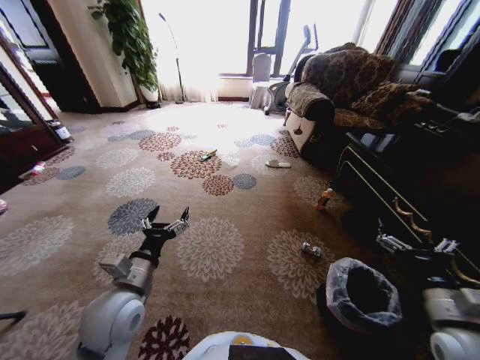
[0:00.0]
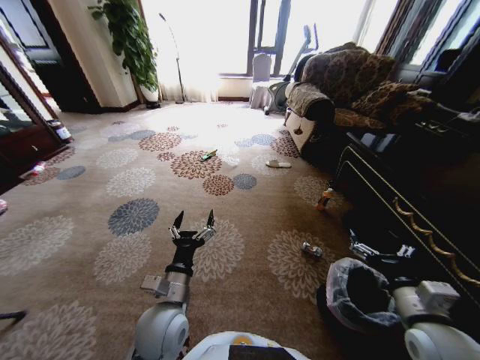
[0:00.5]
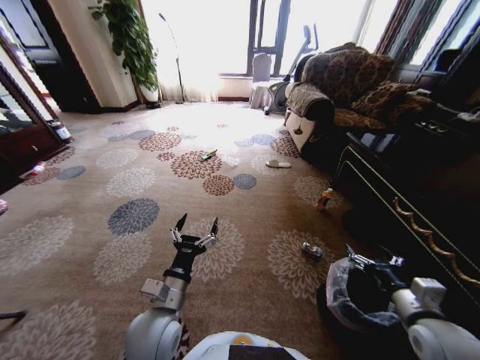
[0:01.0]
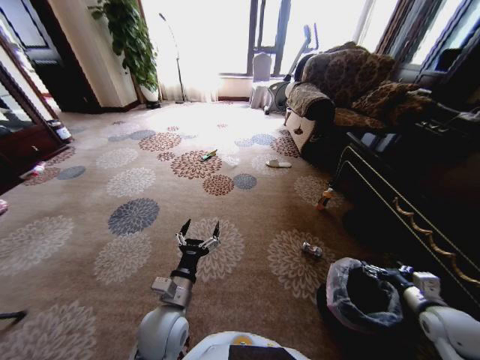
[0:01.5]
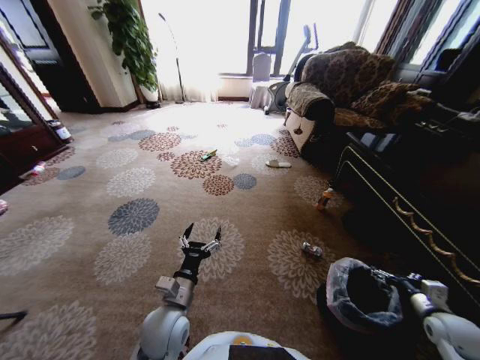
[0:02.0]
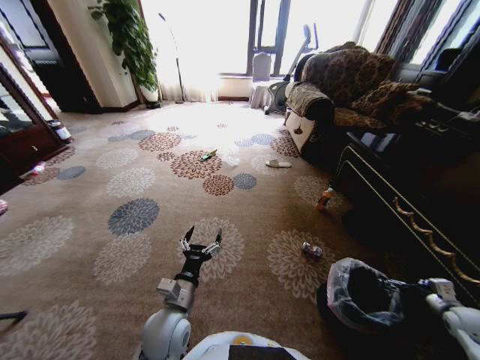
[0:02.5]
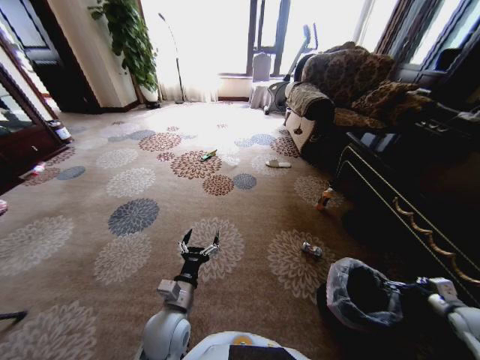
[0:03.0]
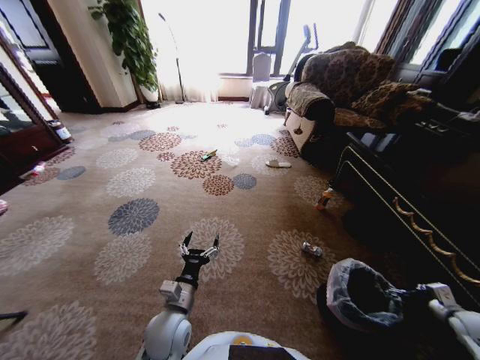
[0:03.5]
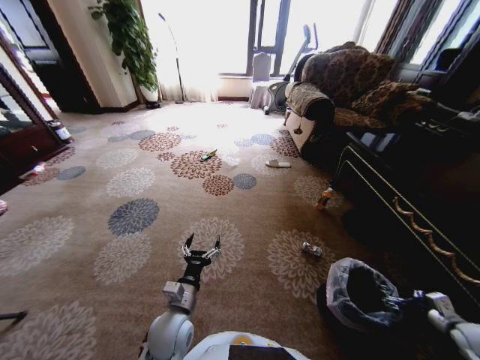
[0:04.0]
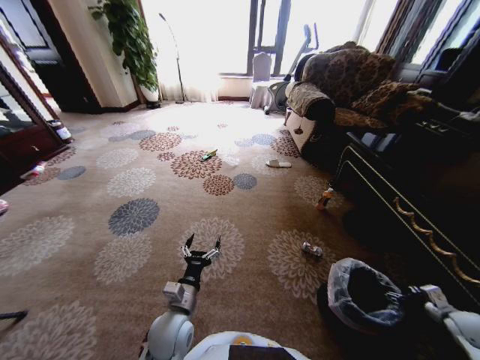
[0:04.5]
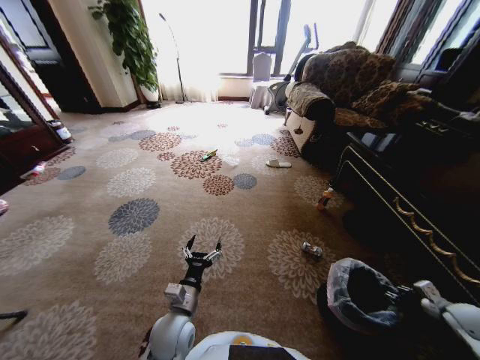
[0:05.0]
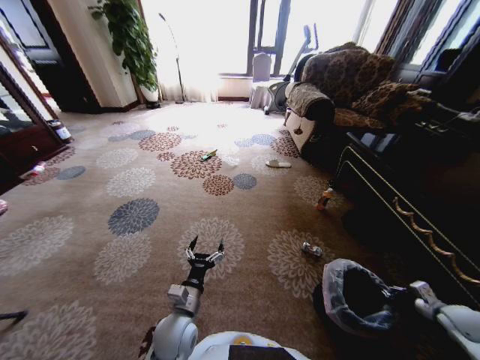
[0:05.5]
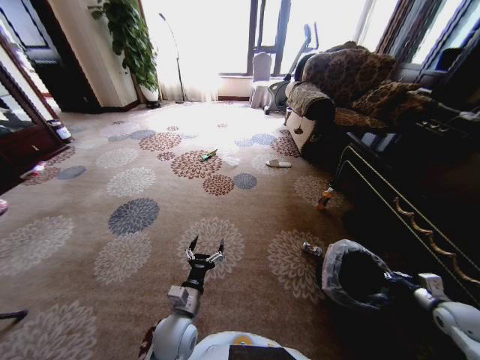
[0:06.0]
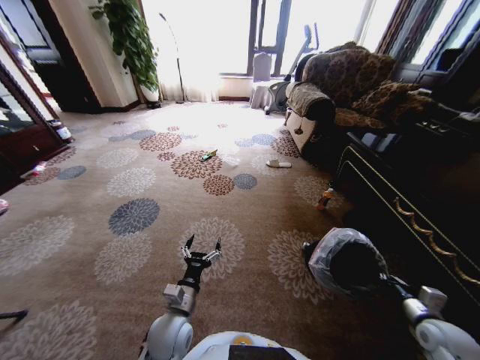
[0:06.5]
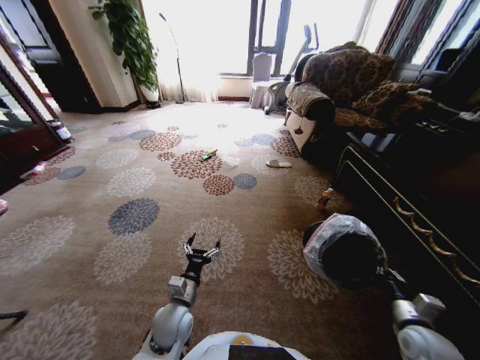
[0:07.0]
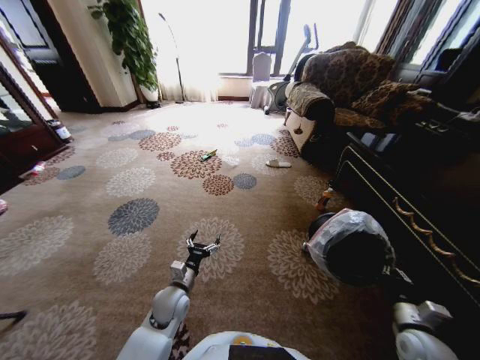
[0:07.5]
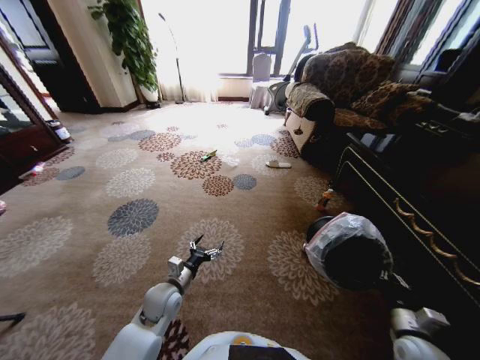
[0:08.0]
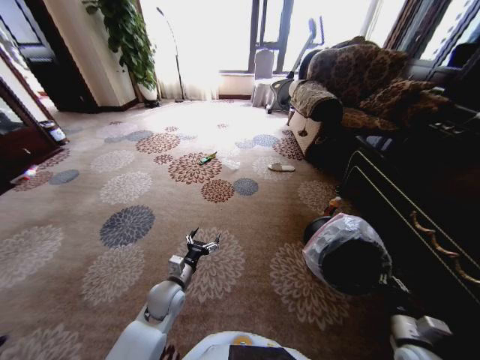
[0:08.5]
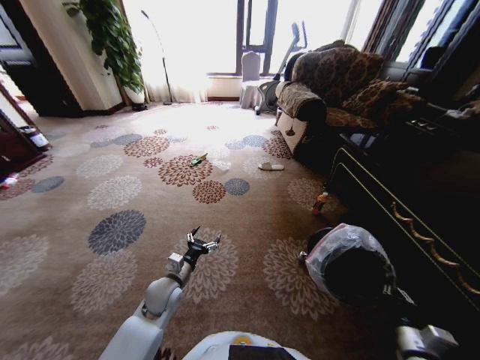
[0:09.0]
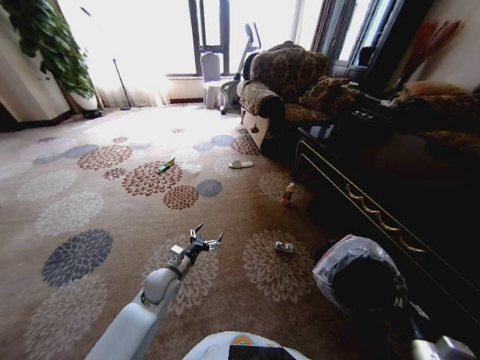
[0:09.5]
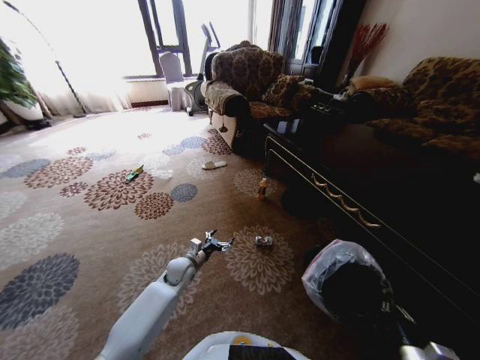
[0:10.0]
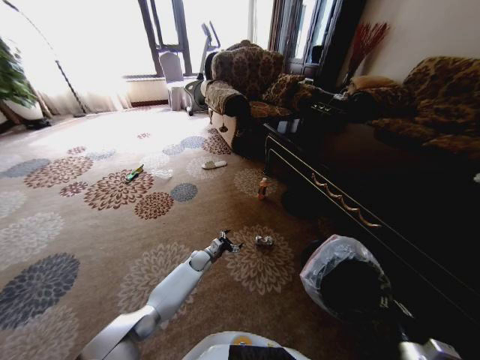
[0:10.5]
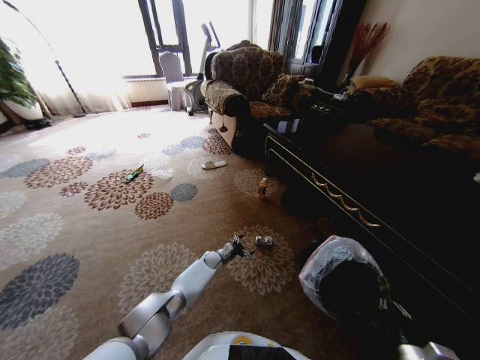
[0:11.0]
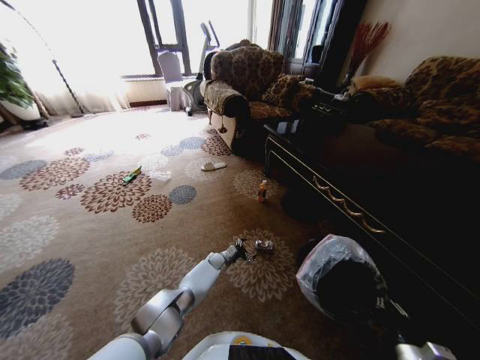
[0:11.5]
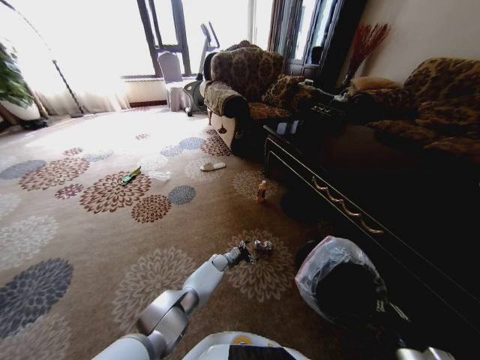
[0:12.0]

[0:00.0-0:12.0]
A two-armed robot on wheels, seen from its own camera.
Task of the whole recording: Pick up the trash from the ground and place it into the trash bin.
0:02.0 to 0:04.0: The right gripper heads to the right, covering roughly 5 cm.
0:04.0 to 0:06.0: The right gripper closes.
0:06.0 to 0:08.0: The left gripper moves forward and to the left, approximately 10 cm. Meanwhile the right gripper moves to the left and backward, about 15 cm.
0:08.0 to 0:10.0: The left gripper travels forward by about 10 cm, while the right gripper heads backward, covering about 10 cm.
0:10.0 to 0:12.0: The left gripper goes some 25 cm downward, to the right and forward.

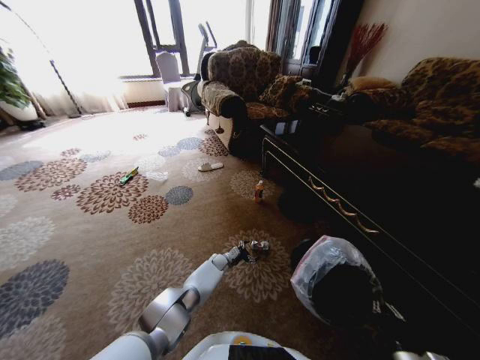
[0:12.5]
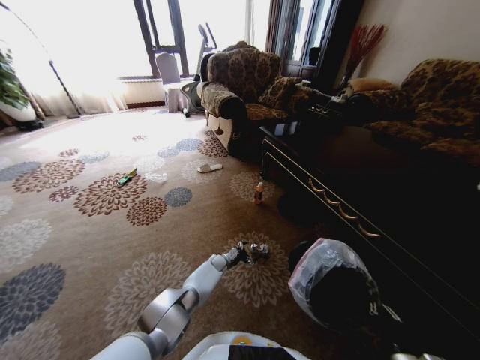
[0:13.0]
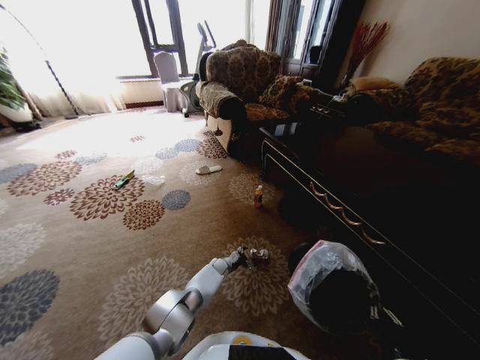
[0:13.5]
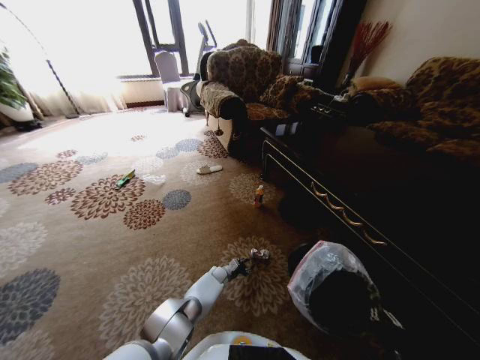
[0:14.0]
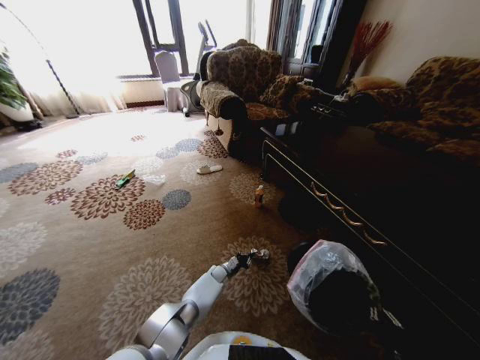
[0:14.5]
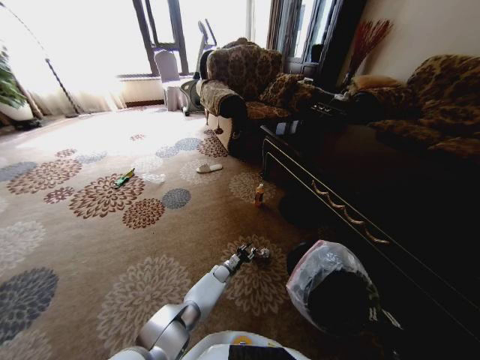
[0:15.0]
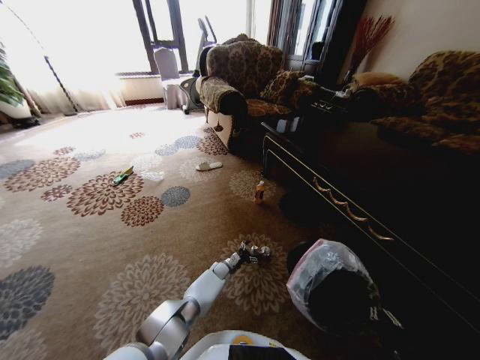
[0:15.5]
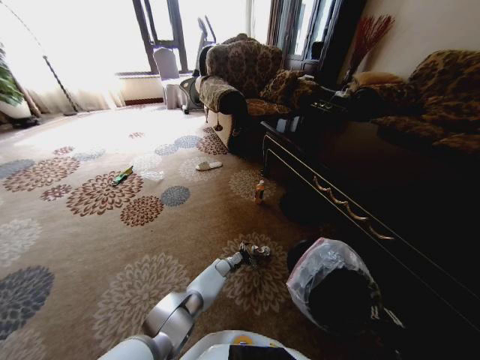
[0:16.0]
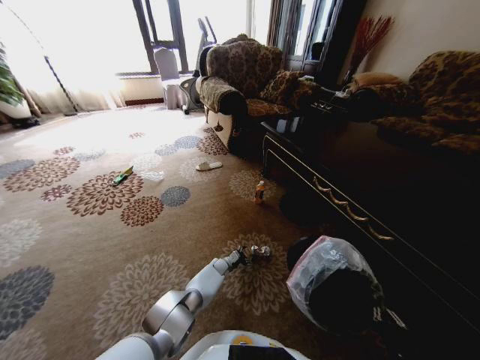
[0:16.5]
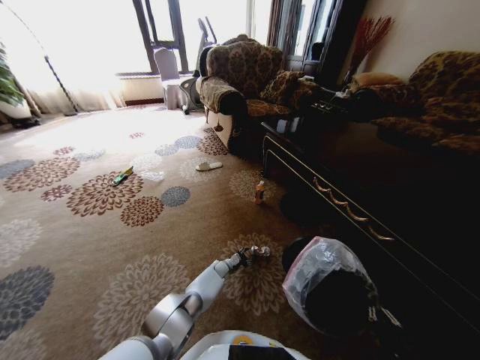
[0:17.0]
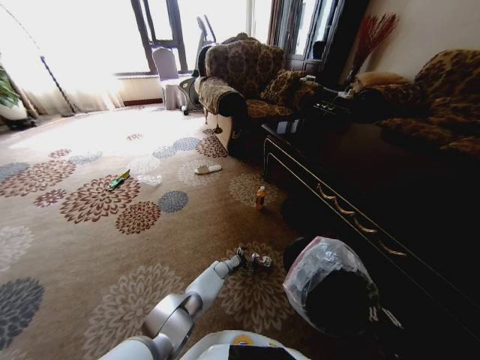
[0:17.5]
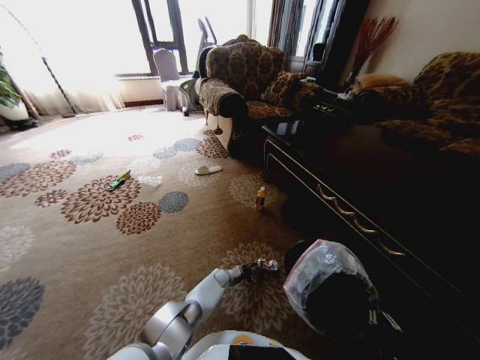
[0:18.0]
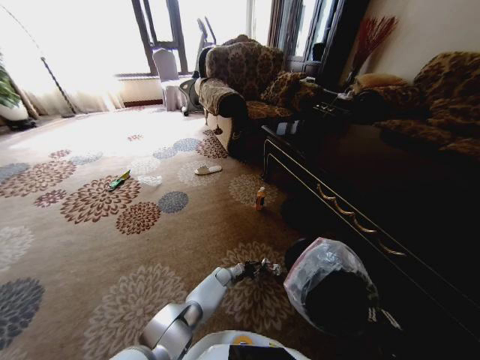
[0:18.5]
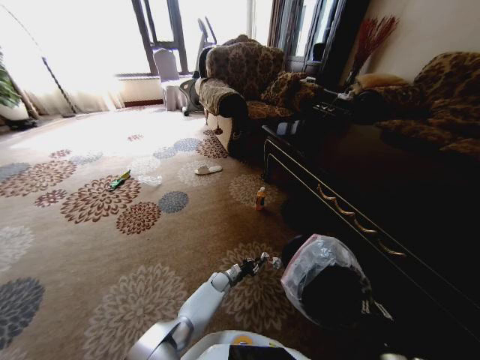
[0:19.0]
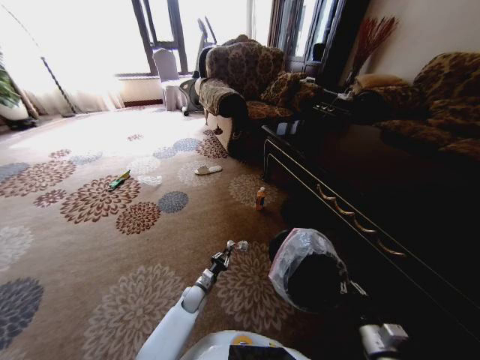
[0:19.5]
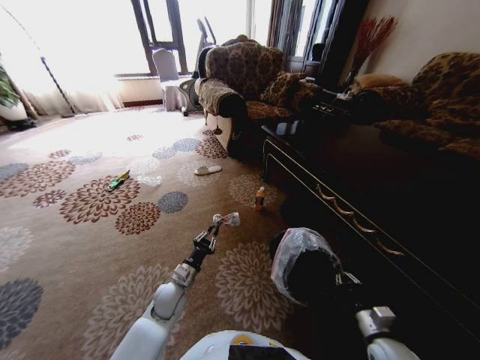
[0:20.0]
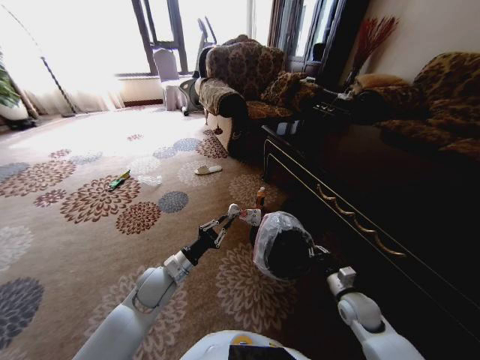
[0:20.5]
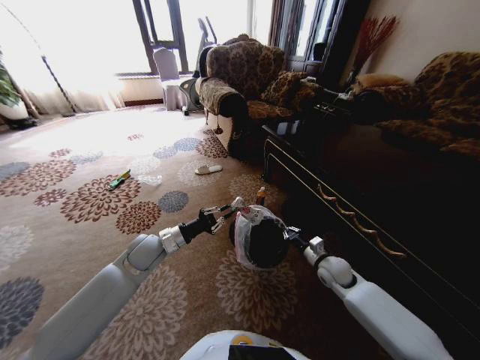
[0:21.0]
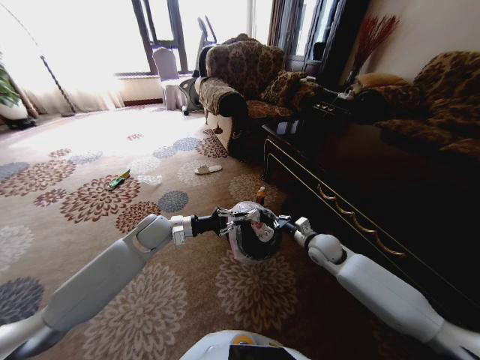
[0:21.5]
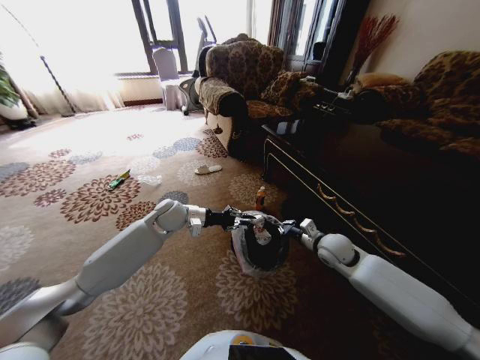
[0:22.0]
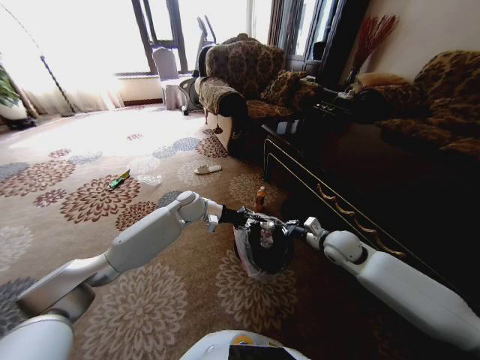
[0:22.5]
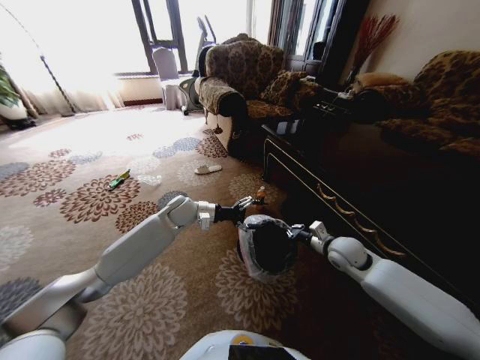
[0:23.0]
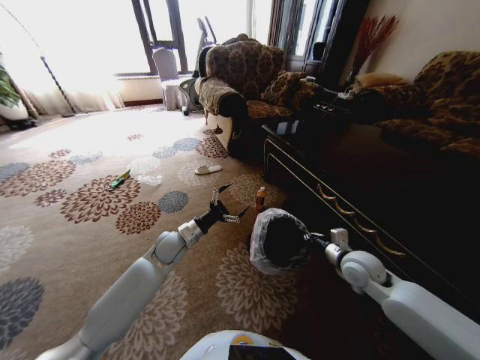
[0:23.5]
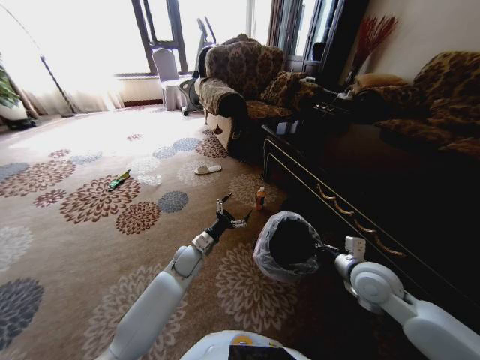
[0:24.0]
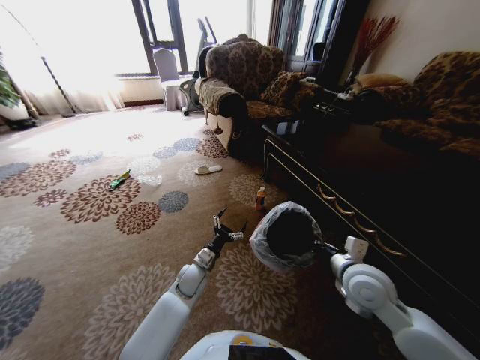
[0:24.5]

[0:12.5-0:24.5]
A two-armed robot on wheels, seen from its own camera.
Task of the whole recording: Pick up the trash from the ground and place it into the trash bin.
0:12.5 to 0:14.5: The left gripper ends up some 5 cm from where it was, and closes.
0:14.5 to 0:16.5: The left gripper opens.
0:16.5 to 0:18.5: The left gripper closes up.
0:18.5 to 0:20.5: The right gripper goes about 20 cm forward. The left gripper is displaced upward, to the left and backward by roughly 35 cm.
0:20.5 to 0:22.5: The grippers both shift forward and upward by some 20 cm.
0:22.5 to 0:24.5: The right gripper travels backward by approximately 10 cm, while the left gripper travels downward and backward by some 25 cm, and opens up.

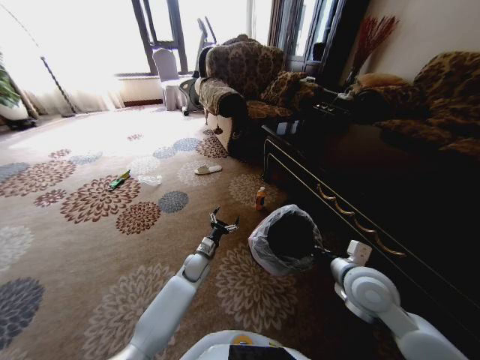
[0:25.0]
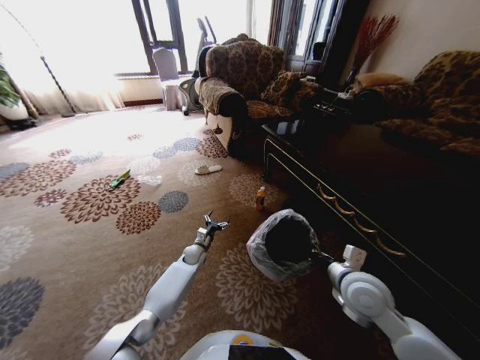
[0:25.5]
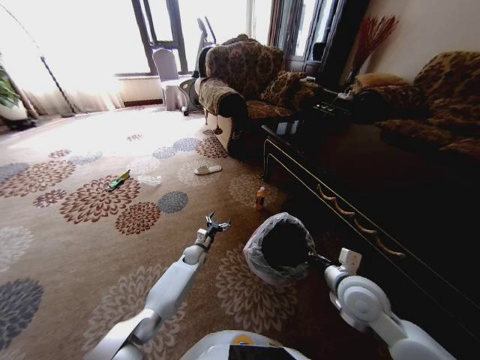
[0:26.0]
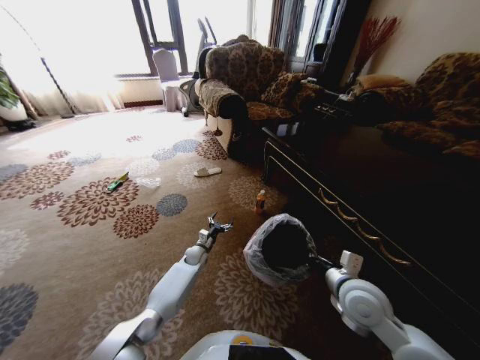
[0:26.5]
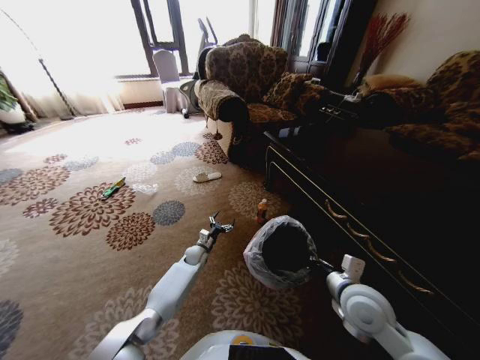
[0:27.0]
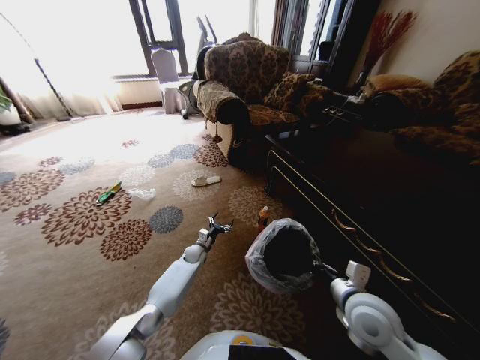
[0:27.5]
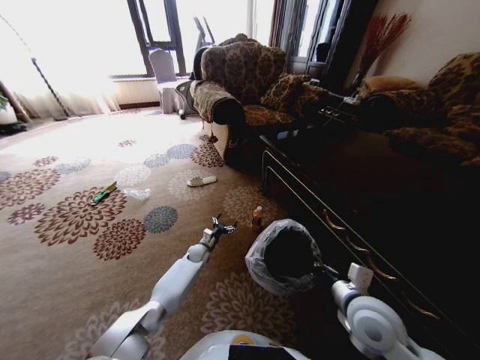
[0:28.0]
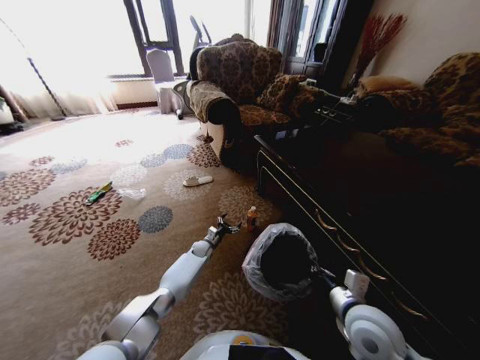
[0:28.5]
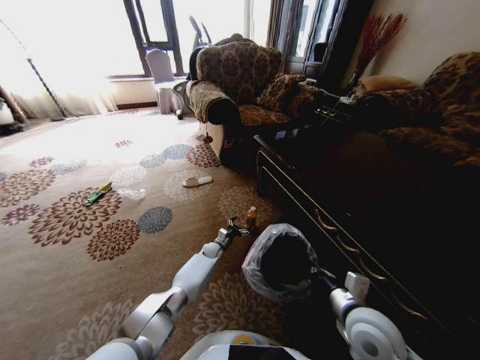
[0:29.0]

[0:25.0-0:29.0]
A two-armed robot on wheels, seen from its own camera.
Task of the whole recording: Pick up the trash from the ground and place it into the trash bin.
0:25.0 to 0:27.0: The left gripper moves forward and downward, about 10 cm.
0:27.0 to 0:29.0: The left gripper moves to the right, roughly 5 cm.
